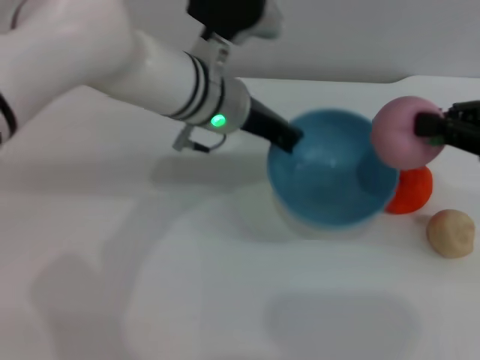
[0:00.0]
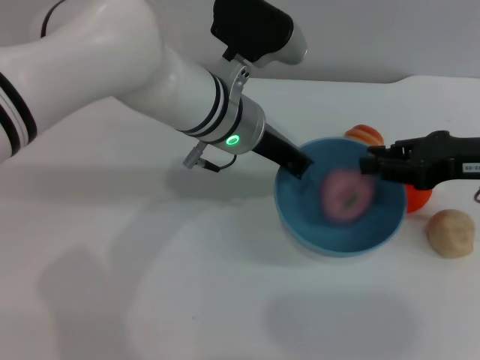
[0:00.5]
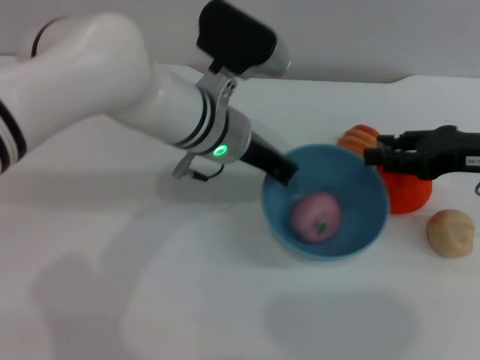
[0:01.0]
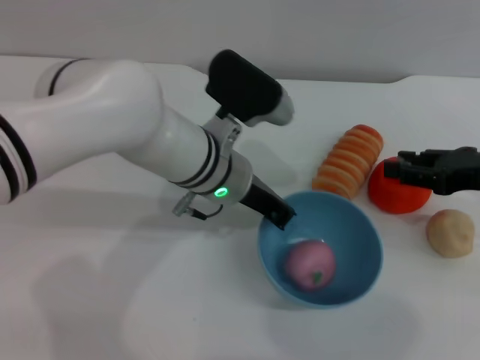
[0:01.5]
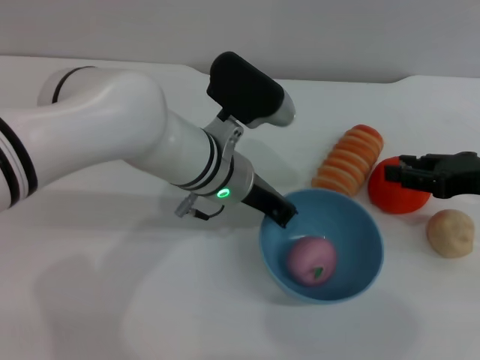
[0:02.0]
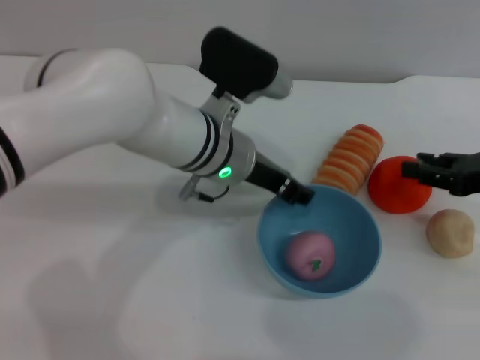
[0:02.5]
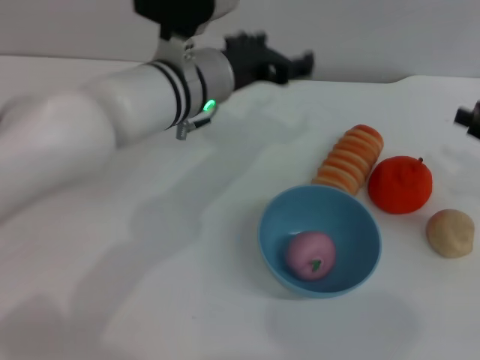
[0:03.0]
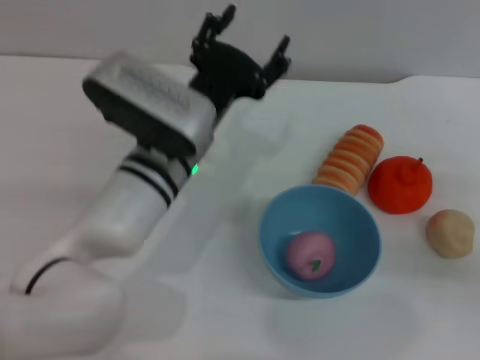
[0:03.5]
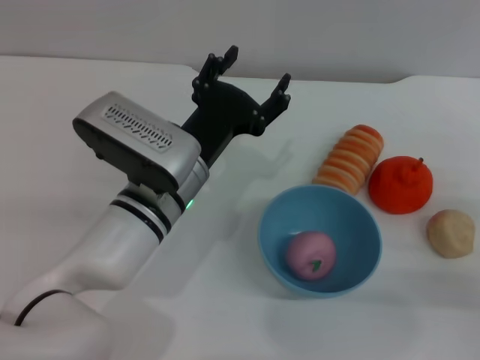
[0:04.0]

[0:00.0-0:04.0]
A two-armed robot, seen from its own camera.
Task of the whole recording: put the peach into the blue bowl and pour it out repeatedly.
Step, 0:00.0 to 0:00.5: Place the peach into the bowl.
Step, 0:01.0 to 0:02.5: Place the bowl on the table.
0:00.0 to 0:02.0: The left gripper travels downward by some 5 cm, while the right gripper shifts about 10 cm downward, and opens up.
0:02.0 to 0:04.0: The left gripper is displaced backward by some 5 cm, and opens its fingers. The right gripper moves backward and downward, some 10 cm.
